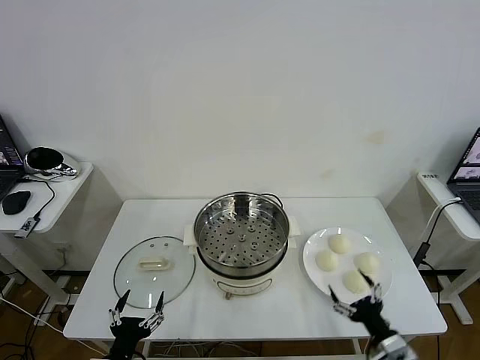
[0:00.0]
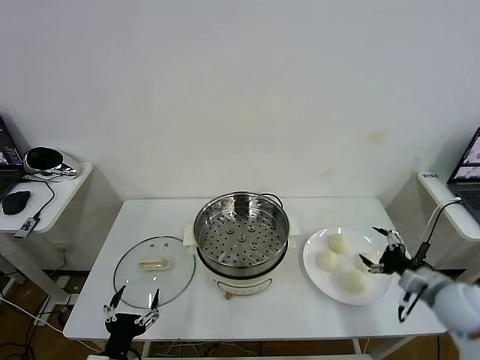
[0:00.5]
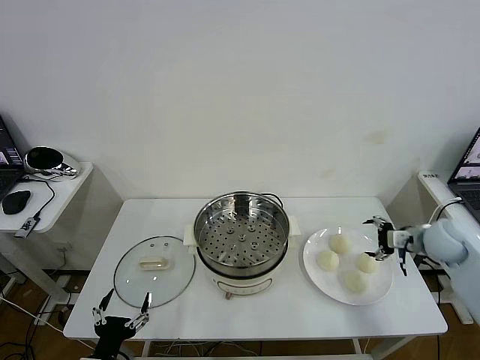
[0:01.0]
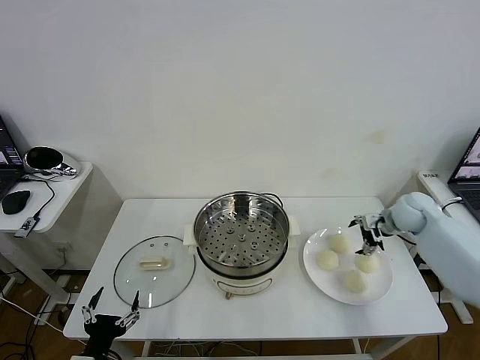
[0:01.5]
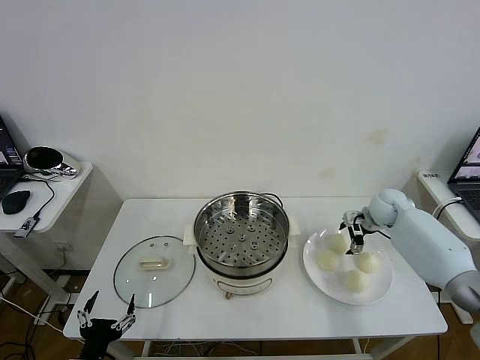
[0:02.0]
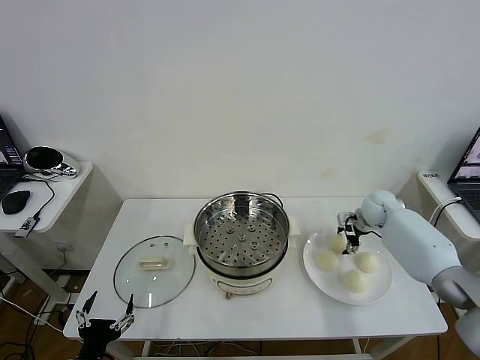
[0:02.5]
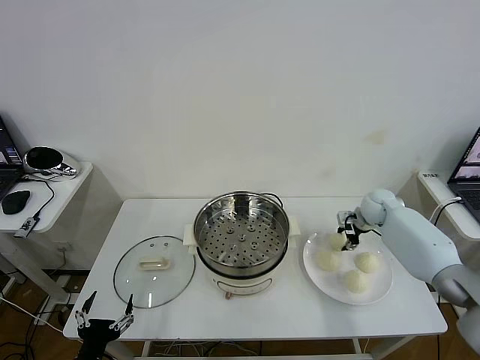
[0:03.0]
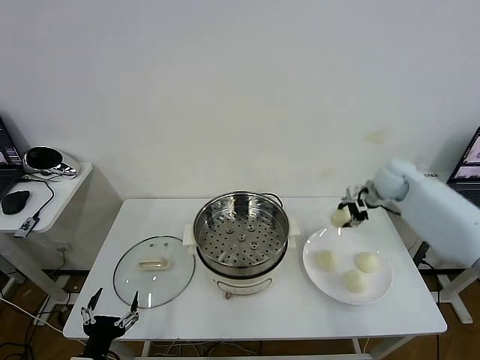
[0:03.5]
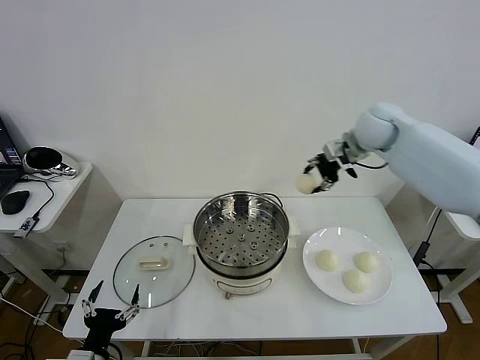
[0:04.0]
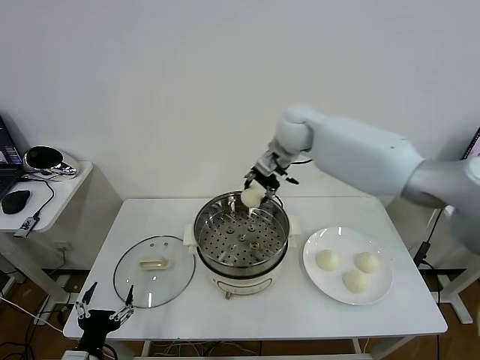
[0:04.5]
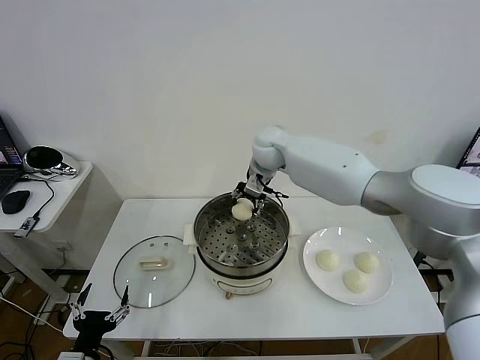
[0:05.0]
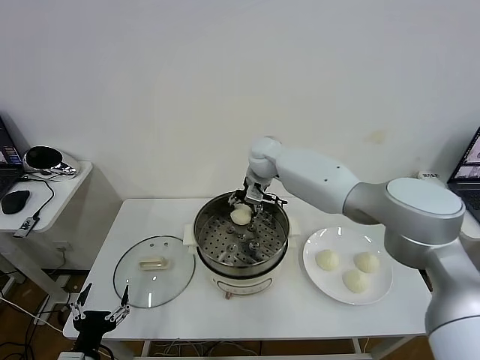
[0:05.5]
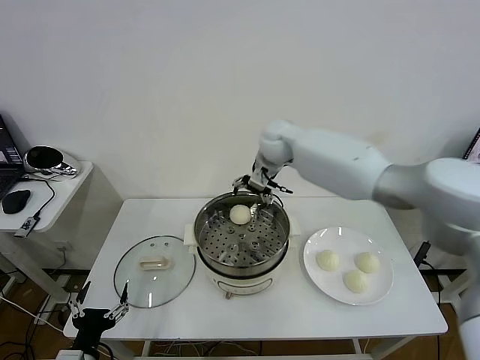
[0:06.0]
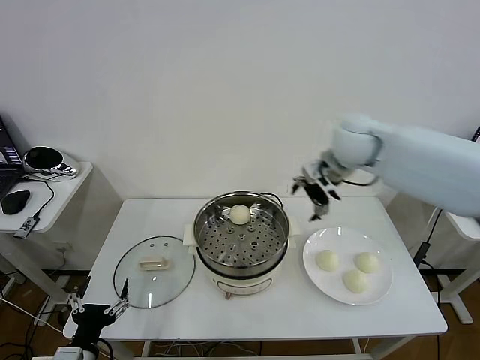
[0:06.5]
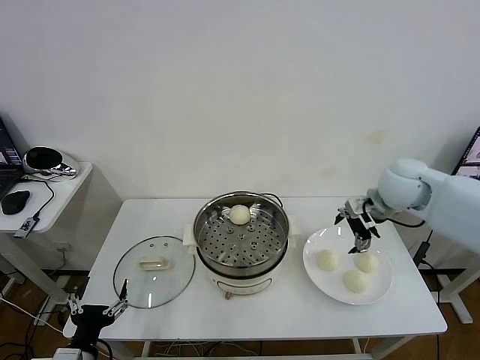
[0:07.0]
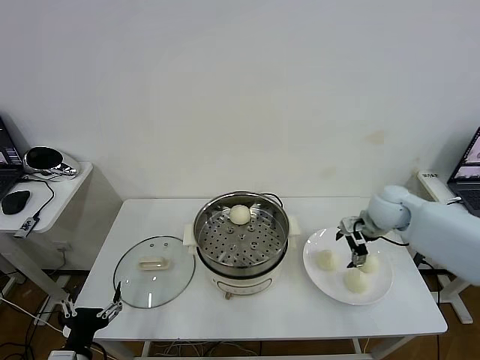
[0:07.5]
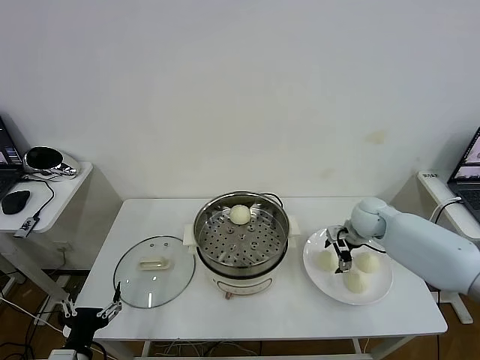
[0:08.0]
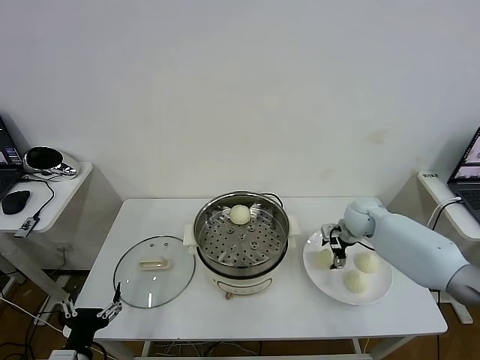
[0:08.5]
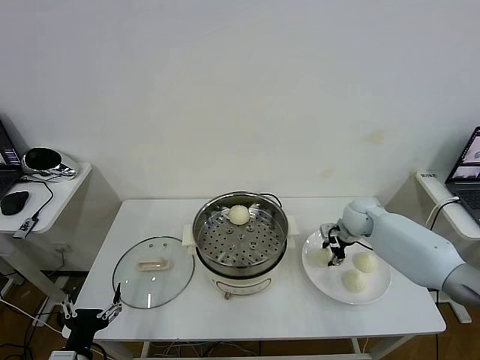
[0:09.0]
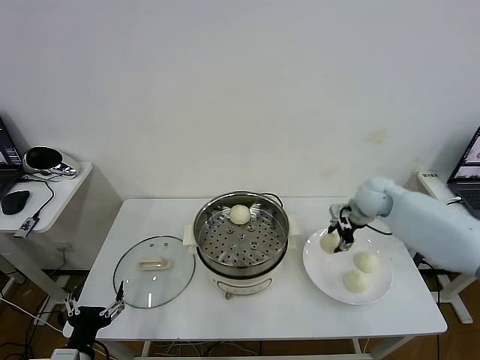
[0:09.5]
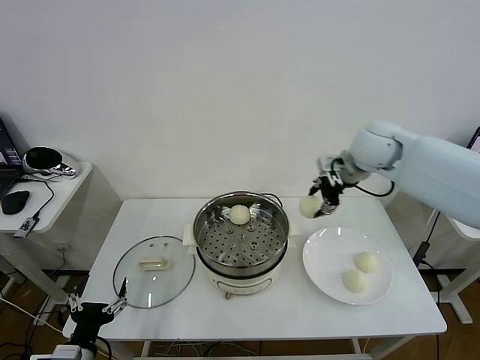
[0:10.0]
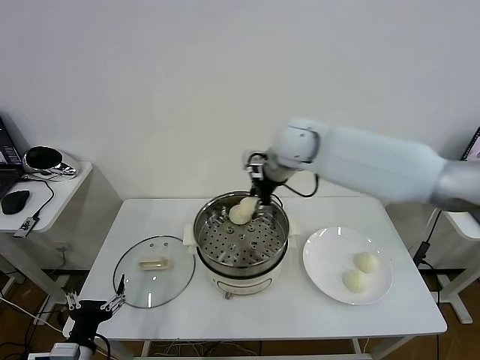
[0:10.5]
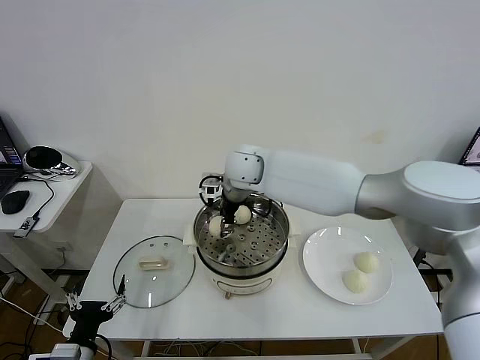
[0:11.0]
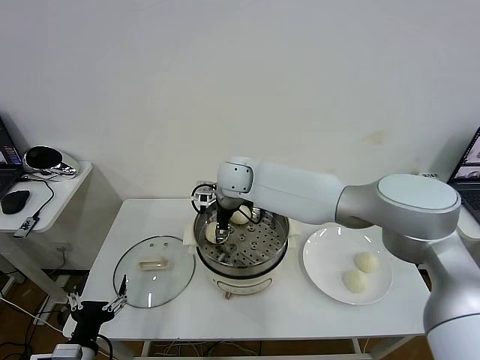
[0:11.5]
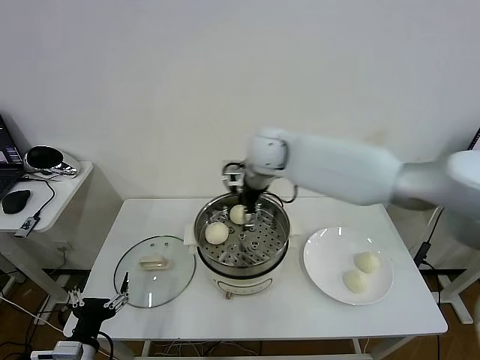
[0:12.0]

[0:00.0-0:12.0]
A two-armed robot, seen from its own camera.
Task of the whole recording: take steamed baozi put them in steamer then cover it.
Step, 0:00.0 to 0:02.5: Grasp the baozi in the plate with right gripper.
Step, 0:03.0 to 0:05.5: Place the baozi on the steamer with right gripper.
Step, 0:06.0 to 0:08.5: Grasp the baozi in the plate with right gripper.
Step, 0:09.5 to 0:11.5: Place the baozi on the steamer with right gripper.
0:02.0 to 0:04.0: The right gripper heads upward and to the left, covering about 30 cm, and closes up.
0:04.0 to 0:06.0: The right gripper travels to the left by approximately 15 cm, and opens.
0:06.0 to 0:08.0: The right gripper shifts approximately 30 cm to the right and downward.
0:08.0 to 0:10.0: The right gripper moves upward, some 25 cm, and closes.
0:10.0 to 0:12.0: The right gripper shifts approximately 15 cm to the left, and opens.

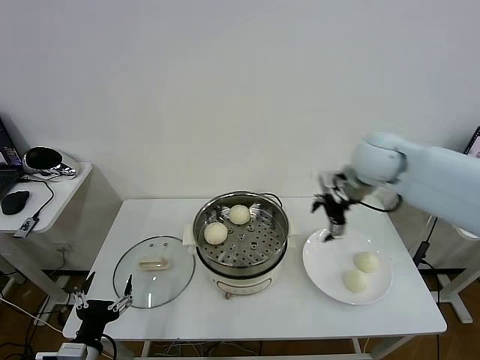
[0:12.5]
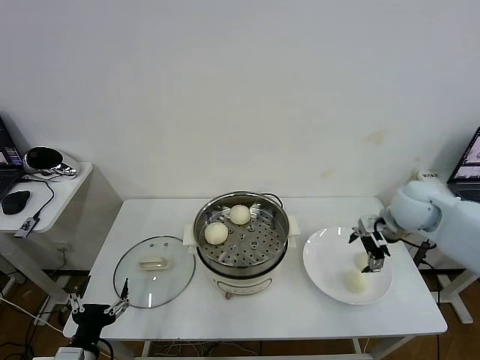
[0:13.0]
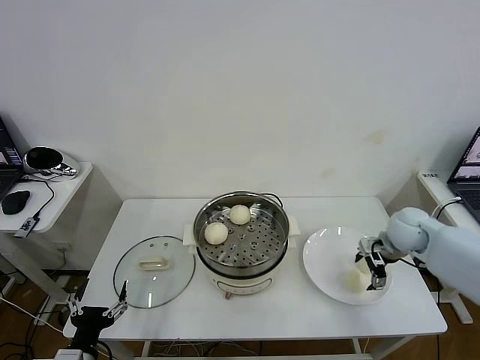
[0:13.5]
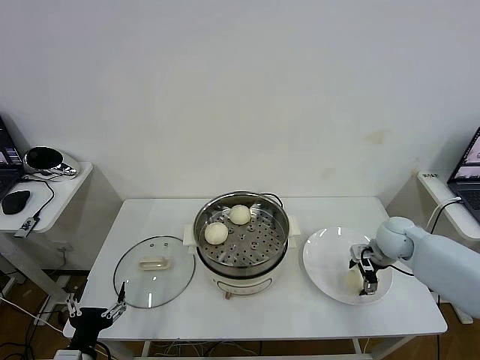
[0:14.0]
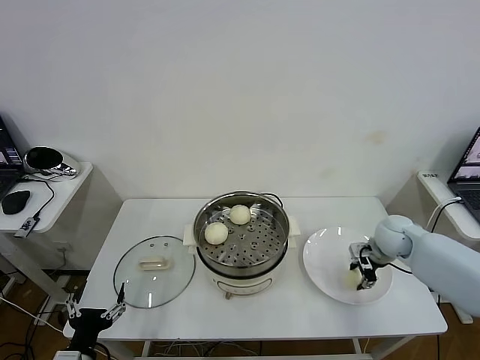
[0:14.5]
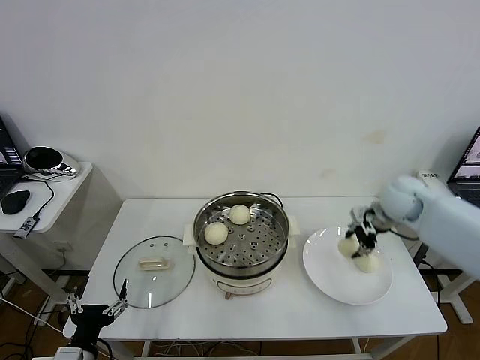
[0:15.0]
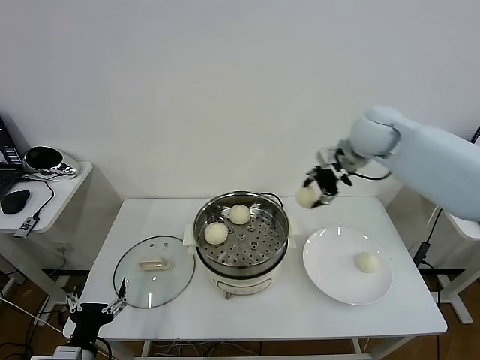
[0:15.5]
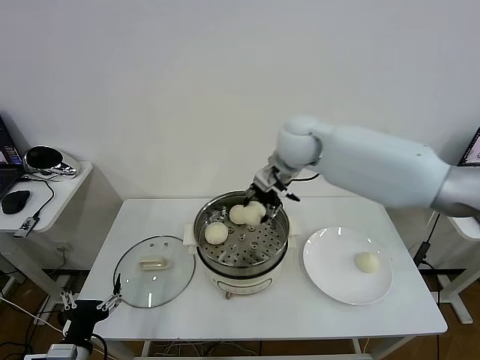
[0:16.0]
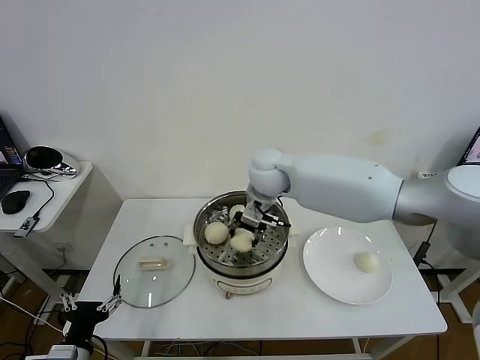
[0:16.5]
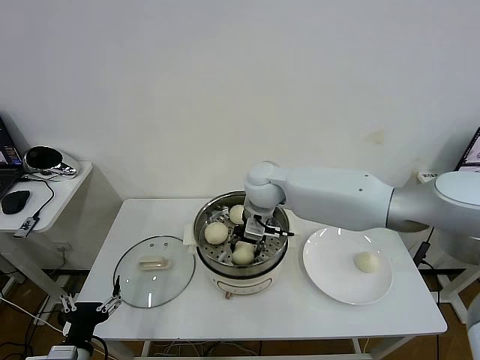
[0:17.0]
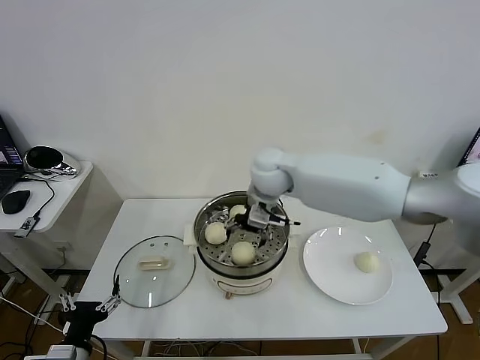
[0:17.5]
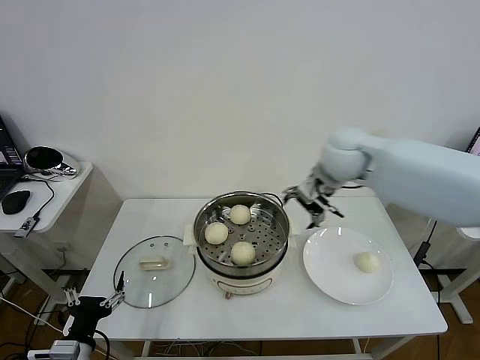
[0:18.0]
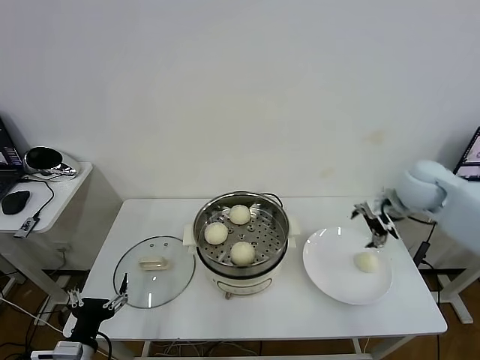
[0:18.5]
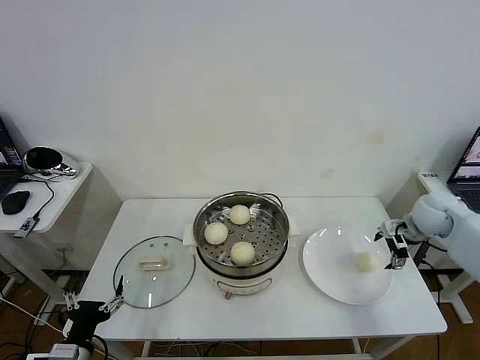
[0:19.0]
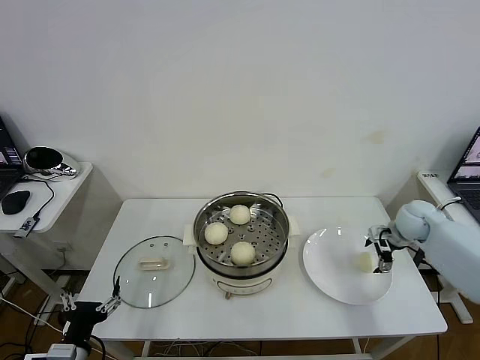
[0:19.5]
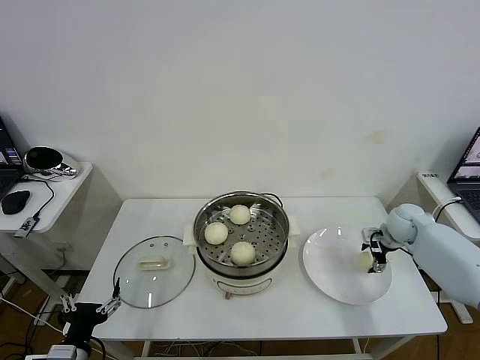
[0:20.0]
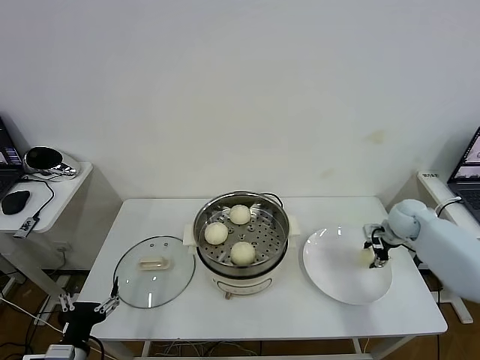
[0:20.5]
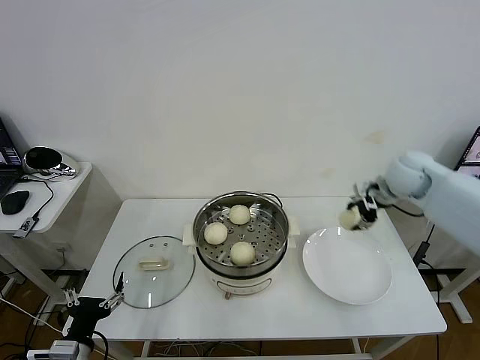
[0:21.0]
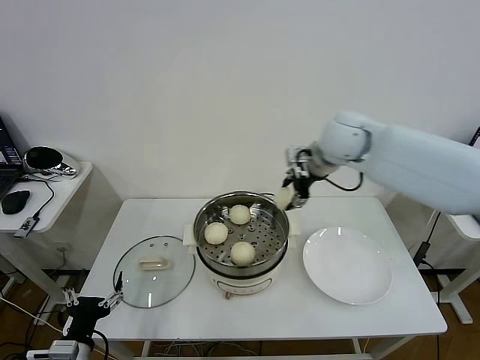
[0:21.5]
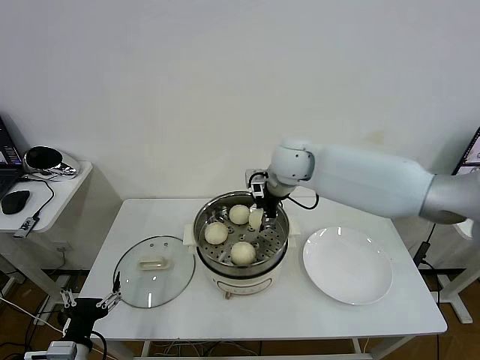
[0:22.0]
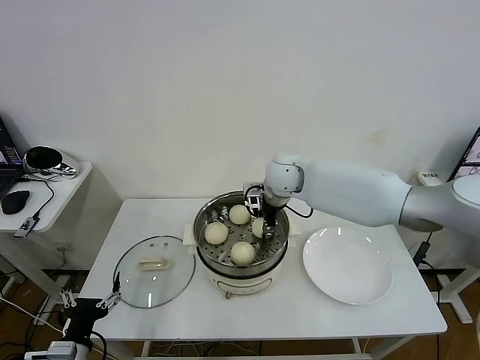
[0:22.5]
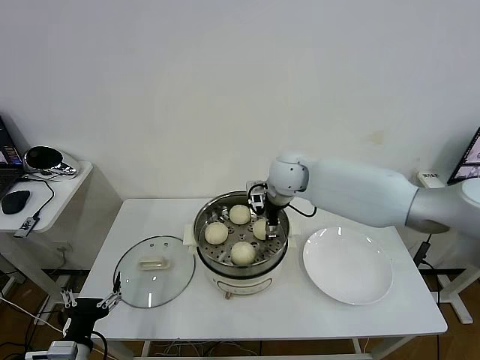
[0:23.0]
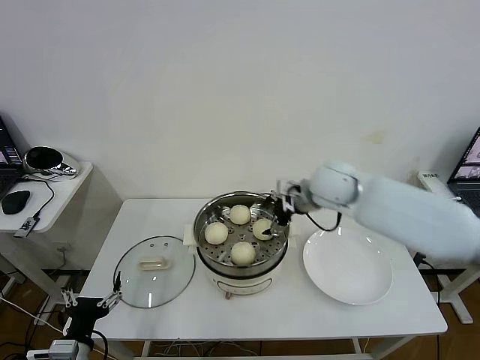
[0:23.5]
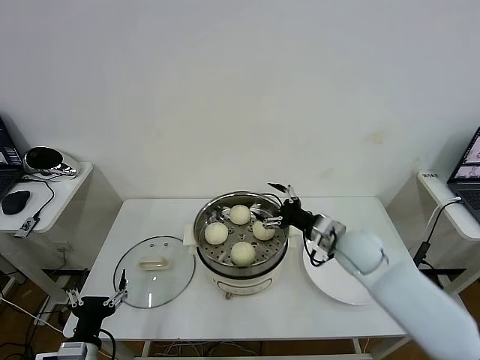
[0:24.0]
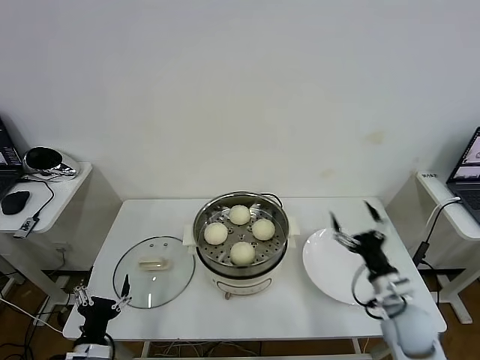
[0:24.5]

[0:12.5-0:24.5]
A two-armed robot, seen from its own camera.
Task of the whole recording: take steamed baozi put them in steamer then cover it.
Step, 0:12.5 to 0:14.0: Grasp the baozi in the plate with right gripper.
Step, 0:15.0 to 0:17.0: Place the baozi on the steamer with right gripper.
Step, 0:17.5 to 0:20.0: Grasp the baozi in the plate with right gripper.
Step, 0:20.5 to 0:23.0: Place the baozi on the steamer with right gripper.
0:12.5 to 0:14.5: The right gripper goes approximately 20 cm downward and to the right, and closes its fingers.
0:14.5 to 0:16.5: The right gripper travels to the left and upward by some 35 cm.
0:16.5 to 0:18.5: The right gripper heads to the right, covering about 30 cm, and opens its fingers.
0:18.5 to 0:20.5: The right gripper heads downward, covering approximately 15 cm, and closes.
0:20.5 to 0:22.5: The right gripper is displaced to the left by roughly 35 cm.
0:22.5 to 0:24.5: The right gripper moves backward, to the right and downward, roughly 40 cm, and opens its fingers.

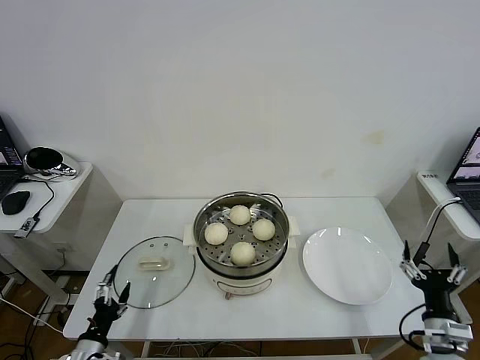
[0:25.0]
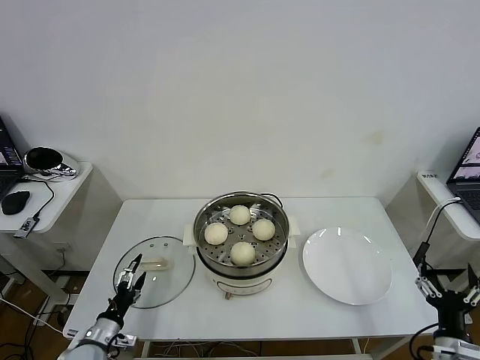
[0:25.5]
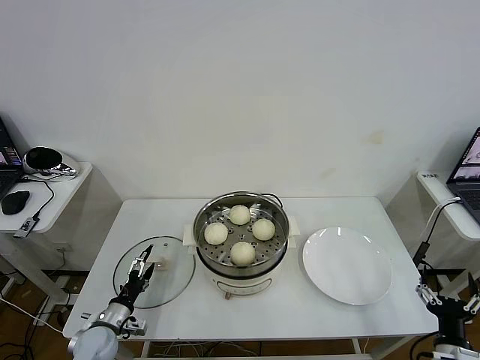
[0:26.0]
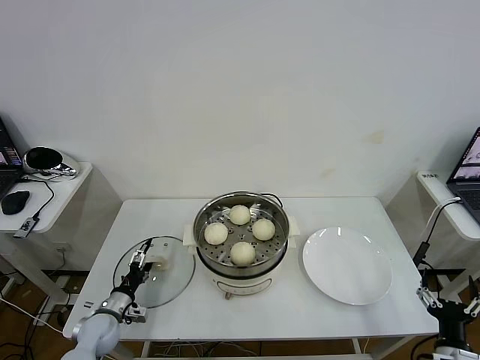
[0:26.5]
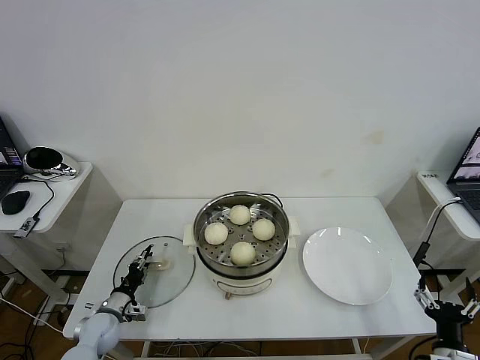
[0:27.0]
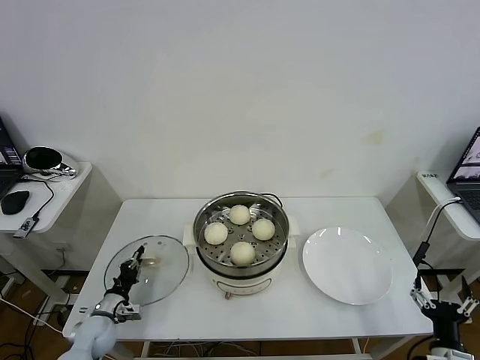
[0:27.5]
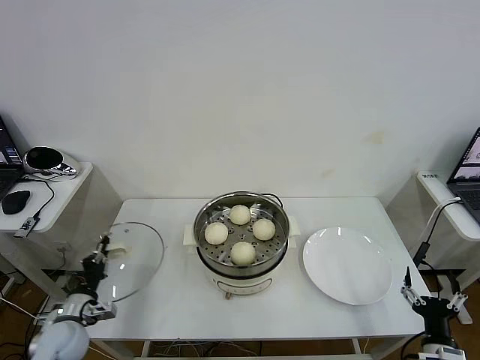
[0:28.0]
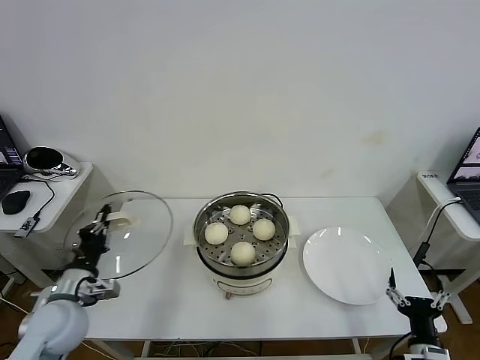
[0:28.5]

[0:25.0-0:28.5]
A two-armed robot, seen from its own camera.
Task of the whole recording: take steamed baozi put them in steamer then cover it.
Step, 0:25.0 to 0:27.0: Grasp the pot lid with left gripper.
0:25.0 to 0:27.0: The left gripper is displaced forward by approximately 15 cm, and closes. The right gripper ends up approximately 5 cm from where it was.
0:27.0 to 0:28.5: The left gripper travels upward by roughly 20 cm, and closes its fingers.
